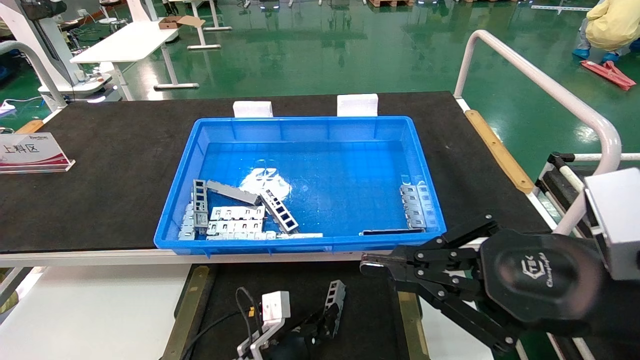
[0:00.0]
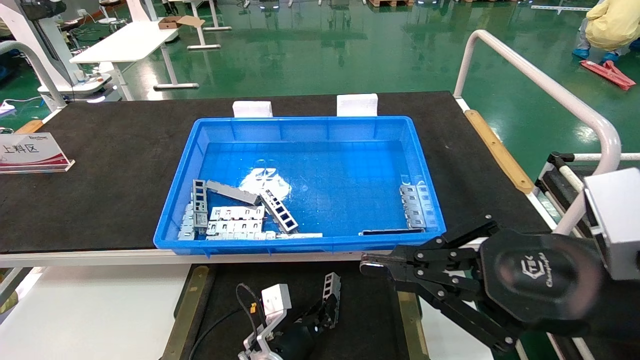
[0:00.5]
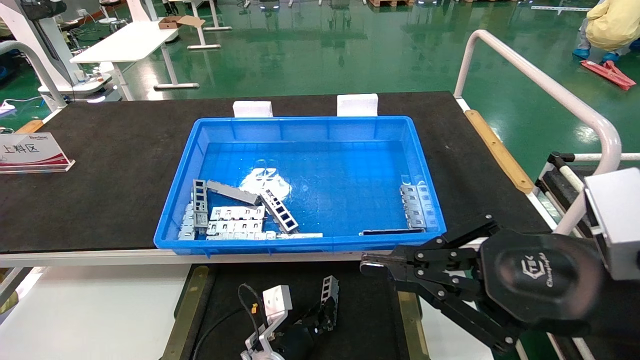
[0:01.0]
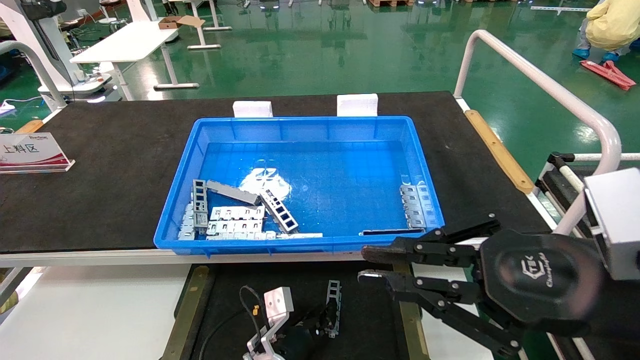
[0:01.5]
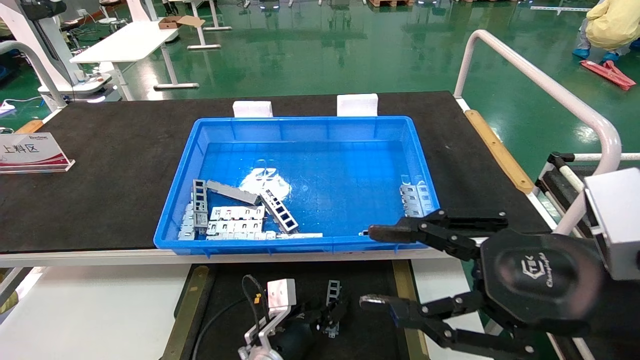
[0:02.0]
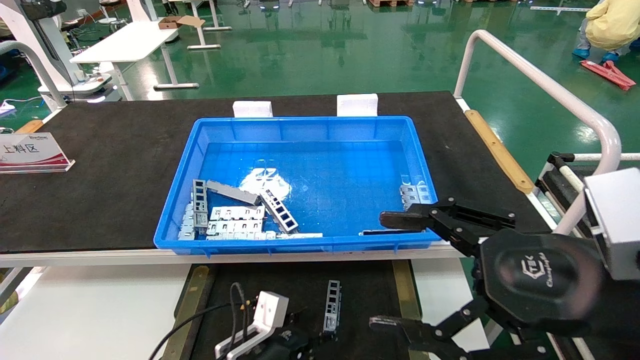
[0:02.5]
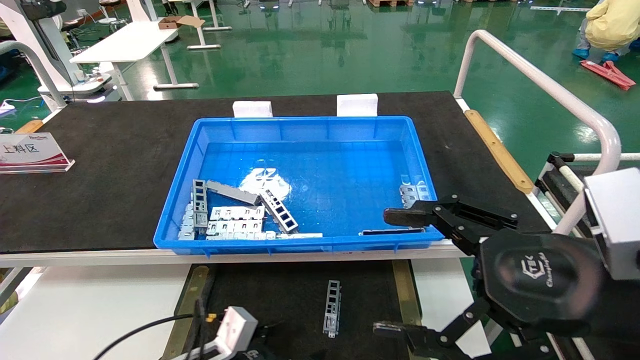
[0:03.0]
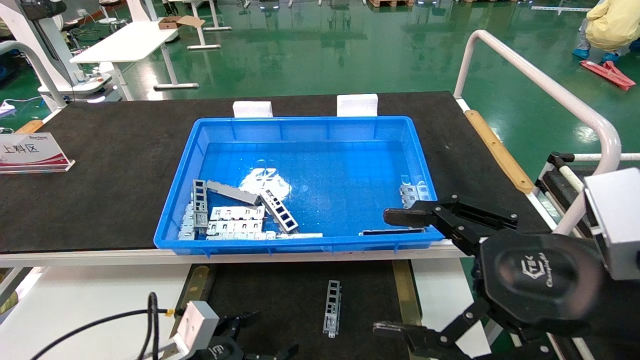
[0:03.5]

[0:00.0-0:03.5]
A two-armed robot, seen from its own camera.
Task of the whole recording: Grasp the part with one hand and place it on the black container.
Step, 0:00.0 to 0:02.0: Place the front USB bracket into the box.
0:00.0 to 0:02.0: The right gripper opens its fingers. Meanwhile the left gripper opens.
0:02.0 to 0:03.5: The right gripper opens, while the left gripper moves to the left and backward, about 15 cm, and opens its fingers.
